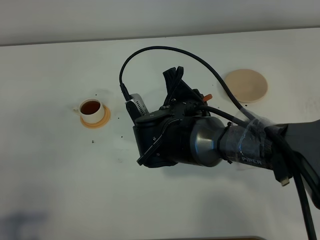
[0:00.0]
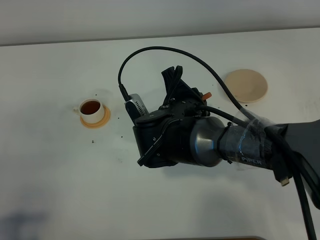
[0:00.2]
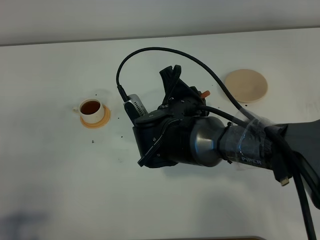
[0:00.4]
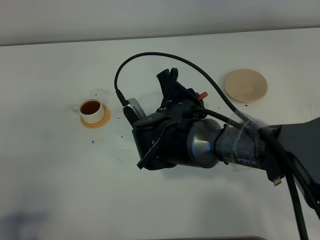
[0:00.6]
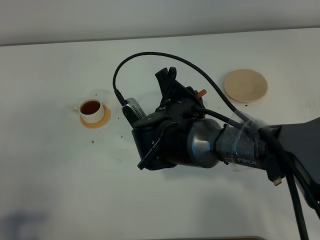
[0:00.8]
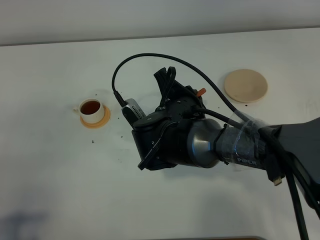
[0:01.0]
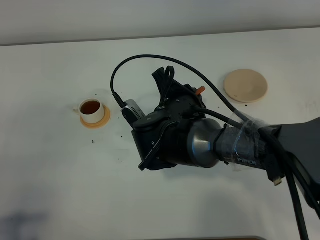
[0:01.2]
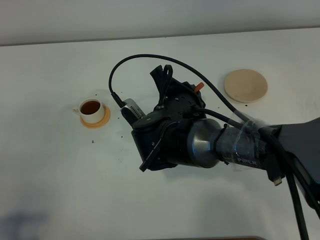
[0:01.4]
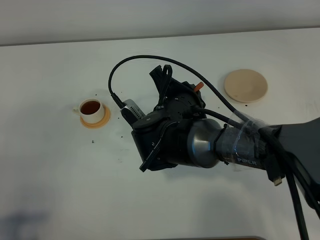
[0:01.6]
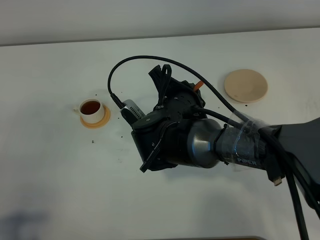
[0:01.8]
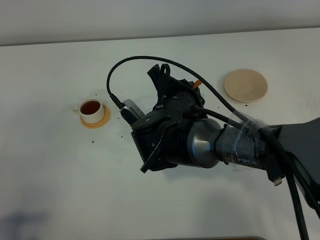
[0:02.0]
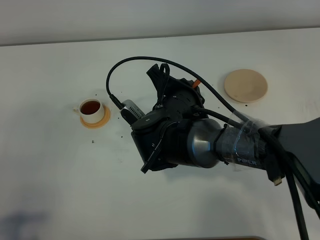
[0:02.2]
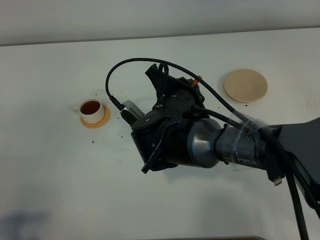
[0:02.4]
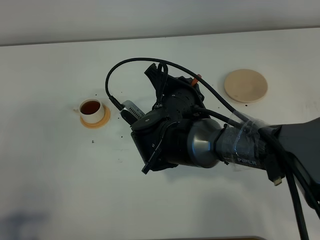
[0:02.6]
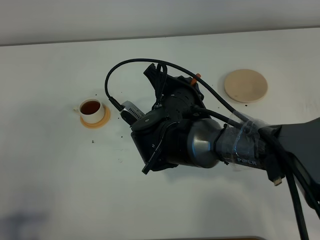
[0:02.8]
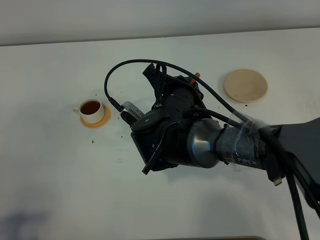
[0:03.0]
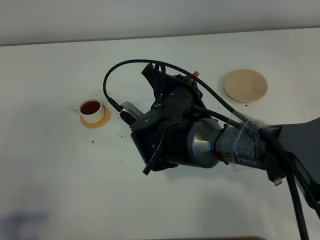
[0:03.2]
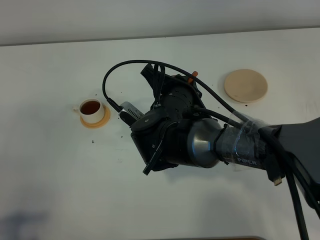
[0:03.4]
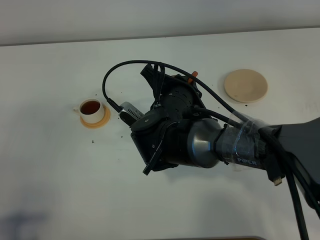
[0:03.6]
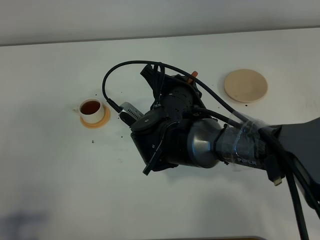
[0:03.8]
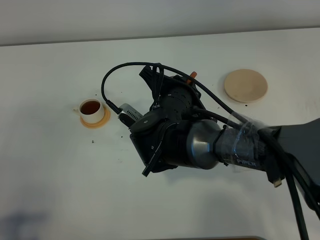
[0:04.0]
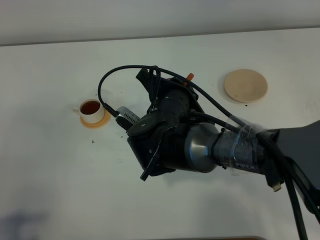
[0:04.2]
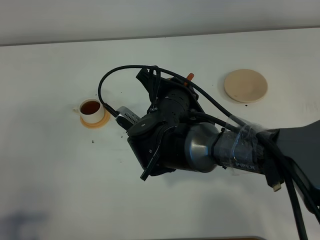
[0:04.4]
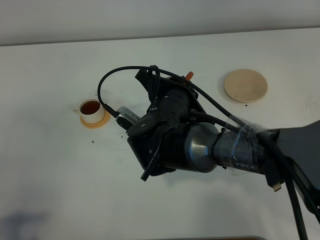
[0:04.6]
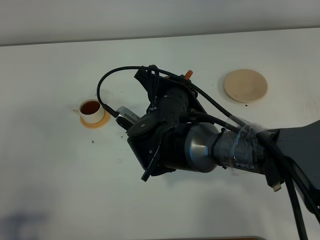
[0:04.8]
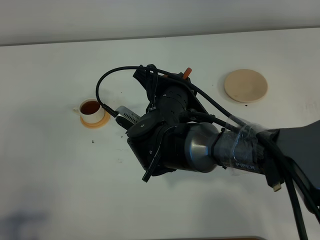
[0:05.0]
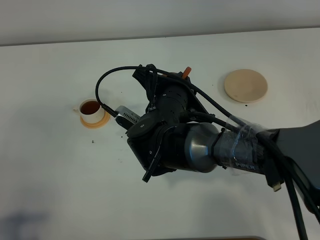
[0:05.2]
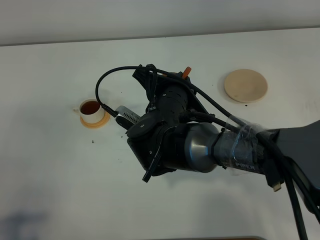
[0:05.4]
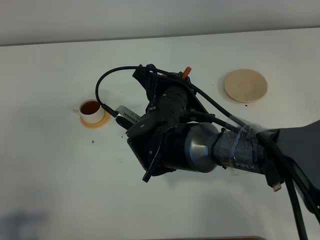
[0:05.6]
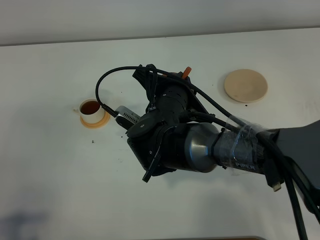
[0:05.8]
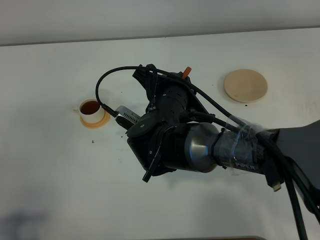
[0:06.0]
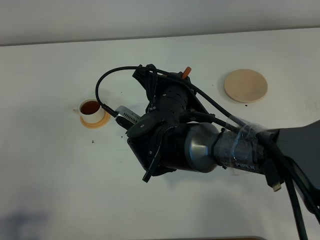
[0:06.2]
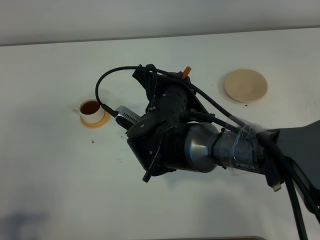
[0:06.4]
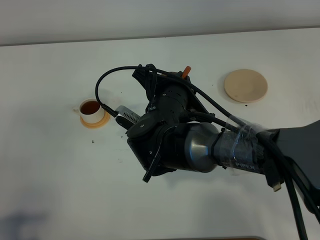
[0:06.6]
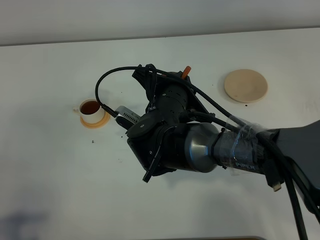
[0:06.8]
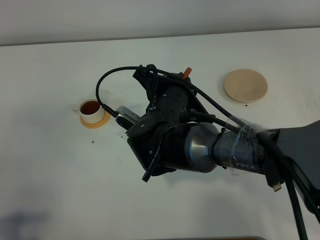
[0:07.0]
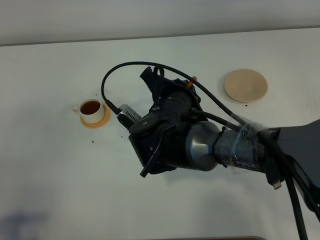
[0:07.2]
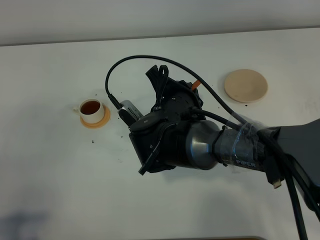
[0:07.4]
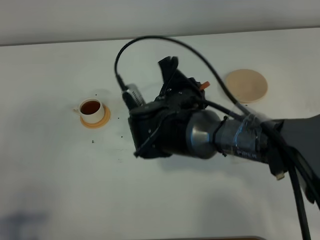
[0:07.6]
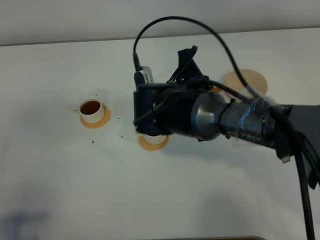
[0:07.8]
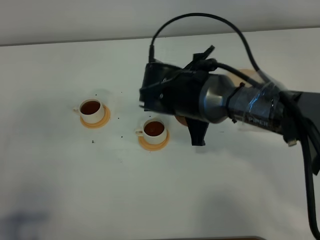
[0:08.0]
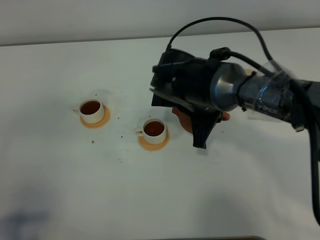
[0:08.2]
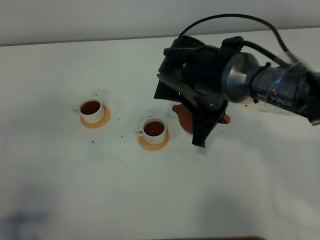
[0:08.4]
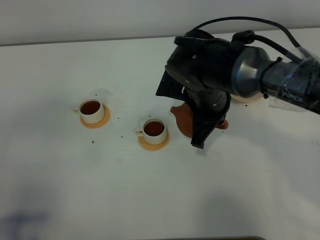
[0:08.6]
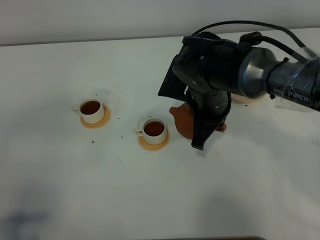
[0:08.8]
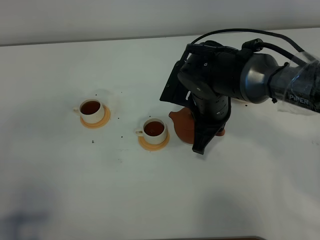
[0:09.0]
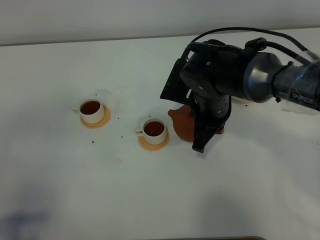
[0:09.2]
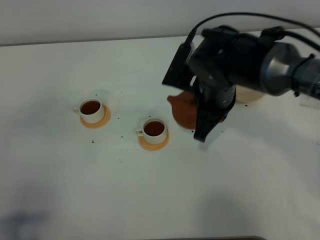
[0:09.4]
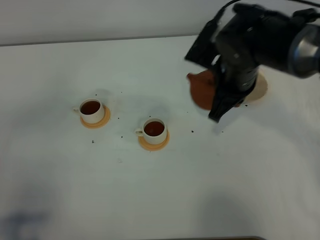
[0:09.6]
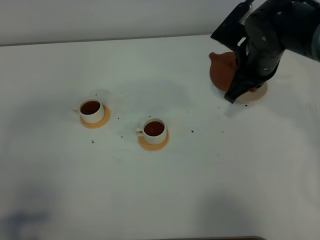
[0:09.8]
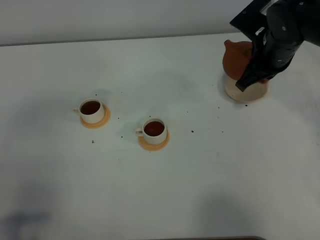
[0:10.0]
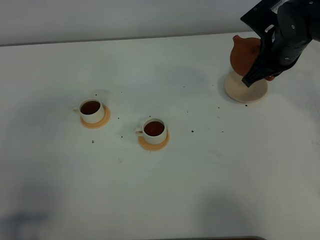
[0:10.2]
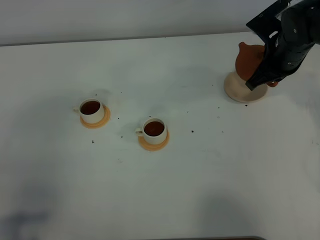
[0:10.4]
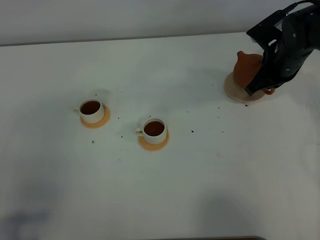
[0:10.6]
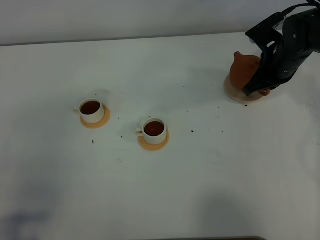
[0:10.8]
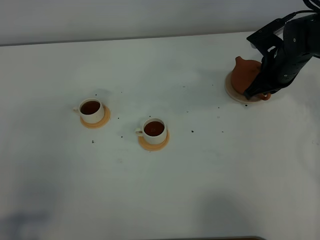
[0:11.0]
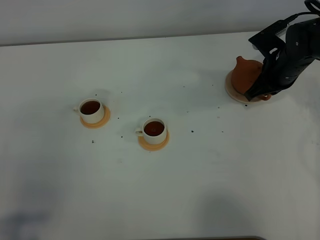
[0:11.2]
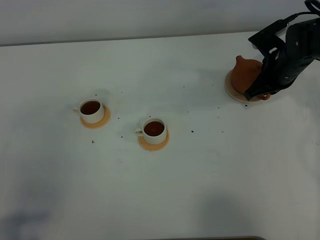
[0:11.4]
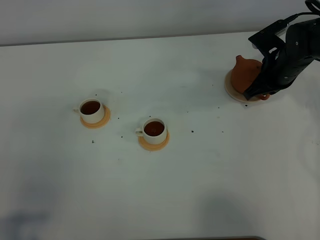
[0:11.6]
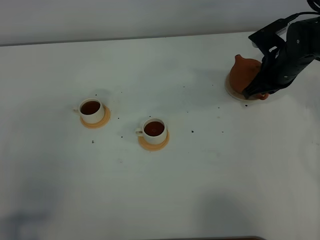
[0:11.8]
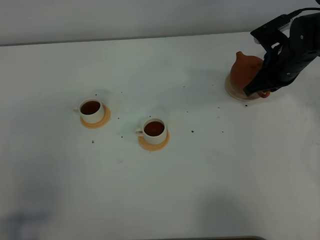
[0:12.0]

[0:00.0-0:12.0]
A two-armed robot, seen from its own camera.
Task of the whole recording: grasp the brown teapot and pour the tea into the two white teacups one by one, put the brown teapot back in its original place.
Step, 0:00.0 to 0:07.8: Pour tea into the teacup with the right gripper.
0:00.0 to 0:01.6: The grippers make only small movements.
0:01.6 to 0:03.0: The grippers stay close to where they were, moving slightly.
0:03.0 to 0:04.4: The two grippers keep their place.
0:04.4 to 0:06.0: The two grippers keep their place.
0:07.6 to 0:09.0: The right gripper moves to the right, some 5 cm.
0:09.0 to 0:10.4: The right gripper is displaced to the right and forward by about 20 cm.
0:10.4 to 0:12.0: The grippers make only small movements.

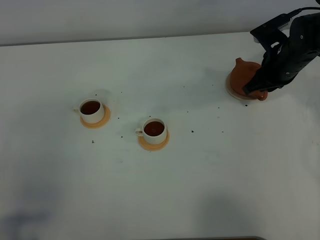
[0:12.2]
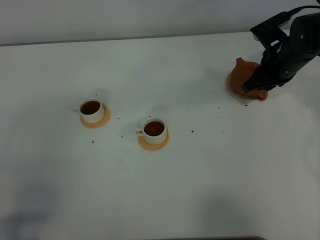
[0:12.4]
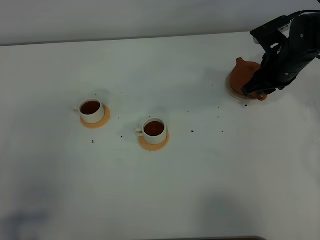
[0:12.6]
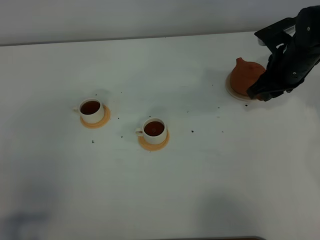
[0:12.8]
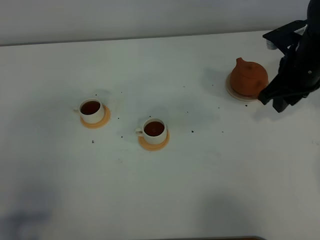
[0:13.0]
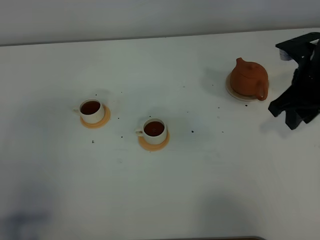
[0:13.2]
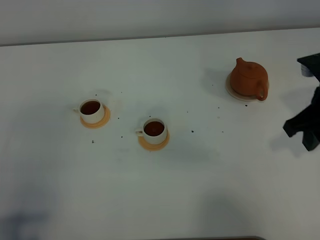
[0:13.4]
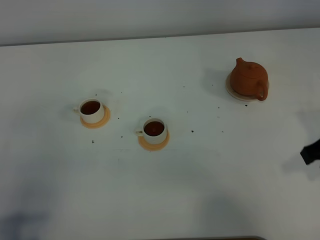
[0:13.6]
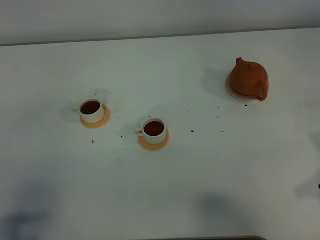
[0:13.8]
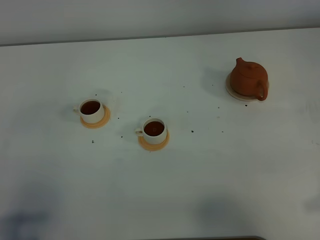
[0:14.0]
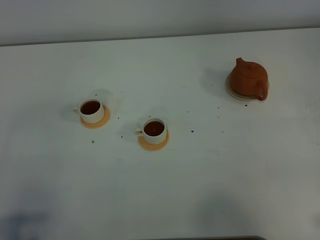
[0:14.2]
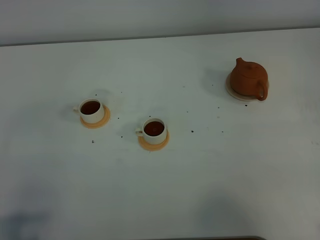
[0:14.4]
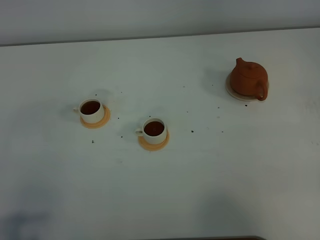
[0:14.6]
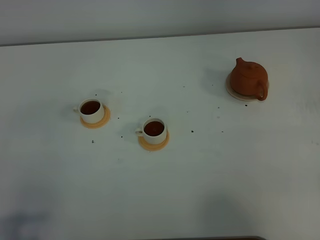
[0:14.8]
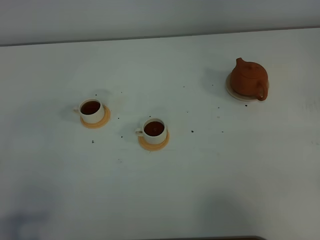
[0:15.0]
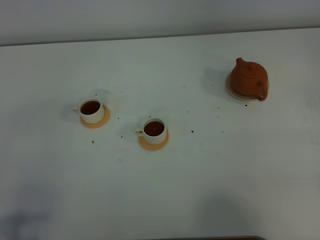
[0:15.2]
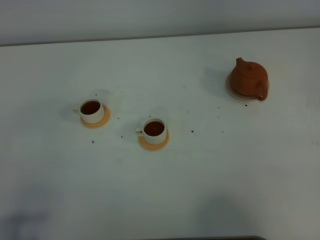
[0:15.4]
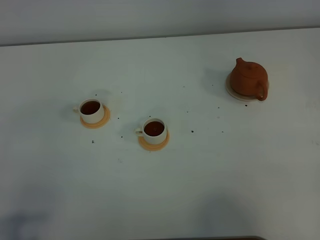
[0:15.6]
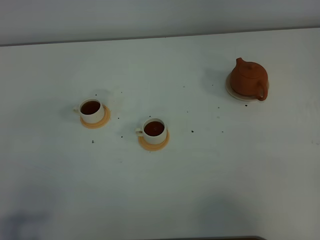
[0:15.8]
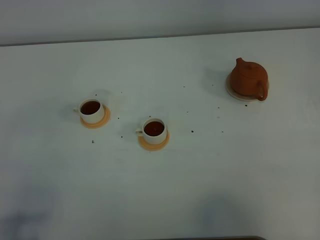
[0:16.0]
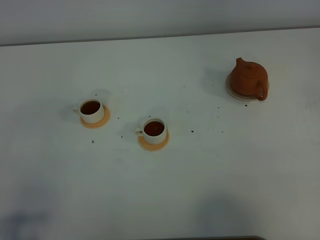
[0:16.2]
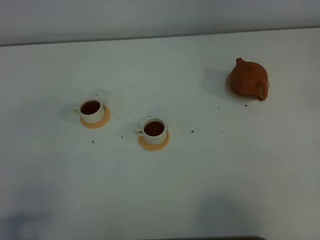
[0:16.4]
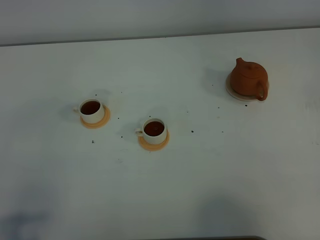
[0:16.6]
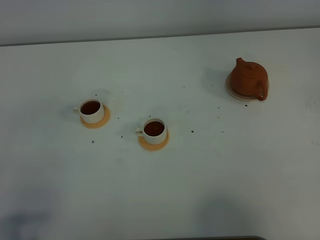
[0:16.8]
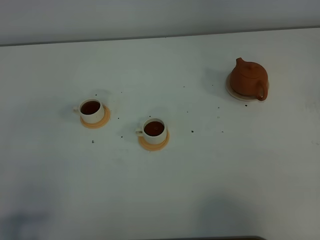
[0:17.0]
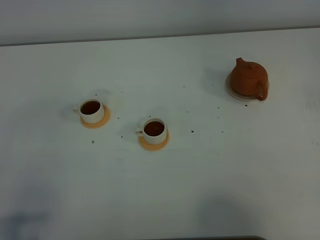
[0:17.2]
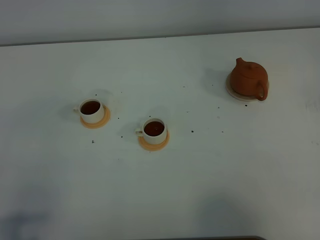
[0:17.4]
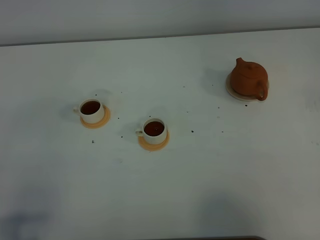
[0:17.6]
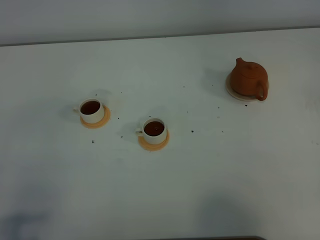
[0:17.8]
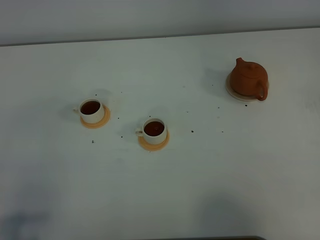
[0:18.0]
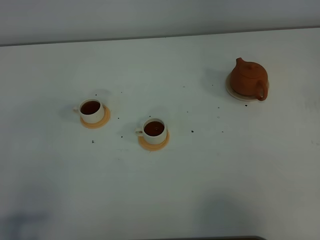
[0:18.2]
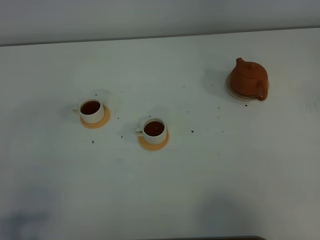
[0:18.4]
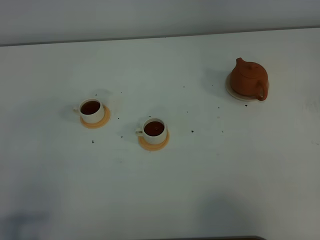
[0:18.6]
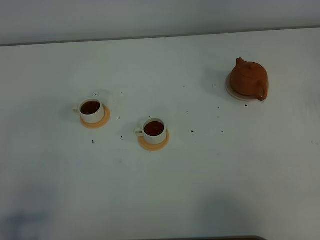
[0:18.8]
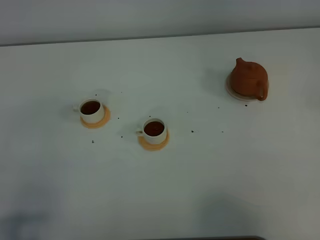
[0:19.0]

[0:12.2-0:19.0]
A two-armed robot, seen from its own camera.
Task of the whole recording: grasp the brown teapot and pour the tea into the two white teacups one by one, put the brown teapot back in its original place.
0:12.2 to 0:13.6: The right gripper is displaced backward and upward by approximately 20 cm.
0:17.6 to 0:19.0: Neither gripper changes place.
